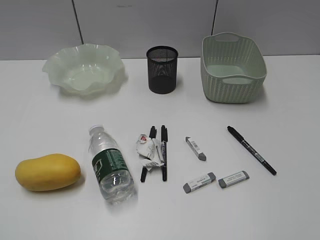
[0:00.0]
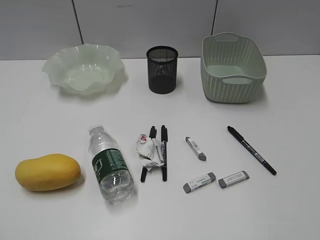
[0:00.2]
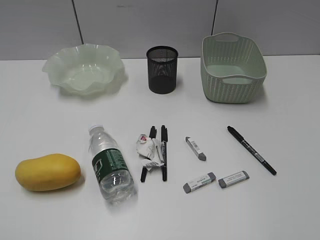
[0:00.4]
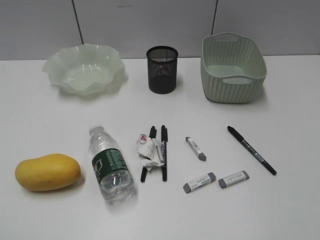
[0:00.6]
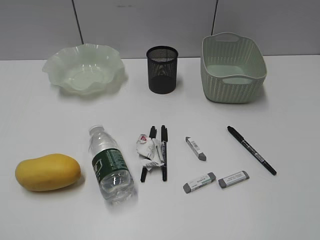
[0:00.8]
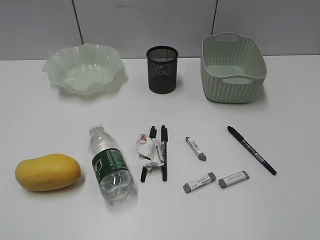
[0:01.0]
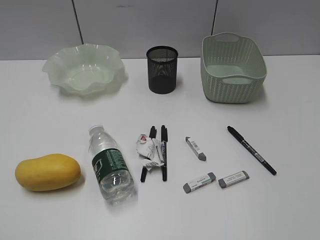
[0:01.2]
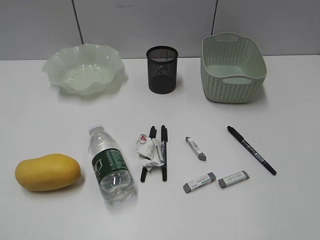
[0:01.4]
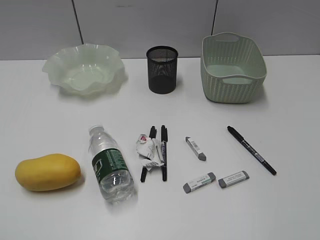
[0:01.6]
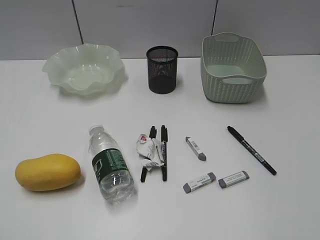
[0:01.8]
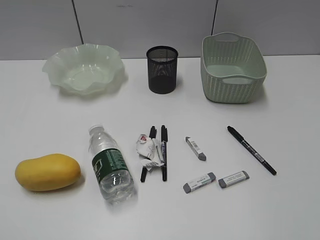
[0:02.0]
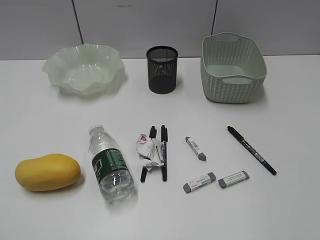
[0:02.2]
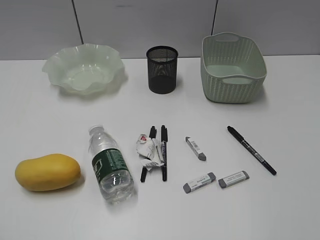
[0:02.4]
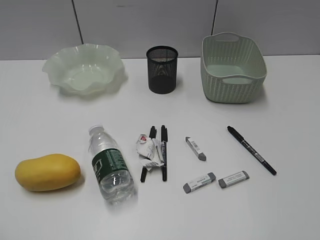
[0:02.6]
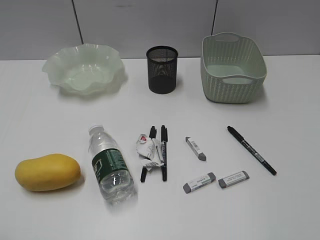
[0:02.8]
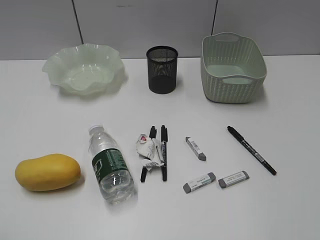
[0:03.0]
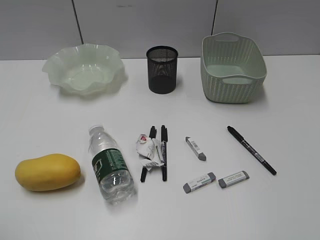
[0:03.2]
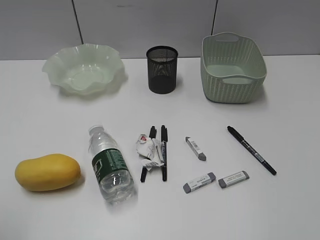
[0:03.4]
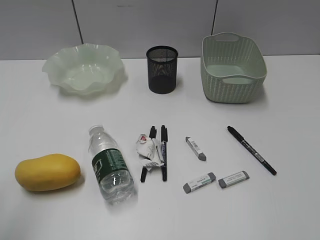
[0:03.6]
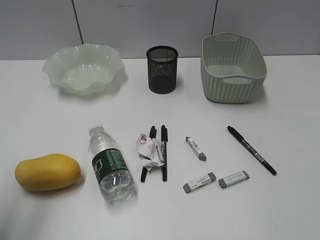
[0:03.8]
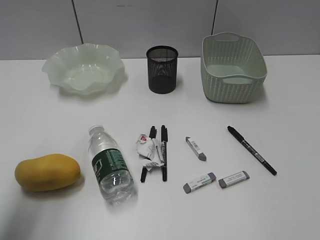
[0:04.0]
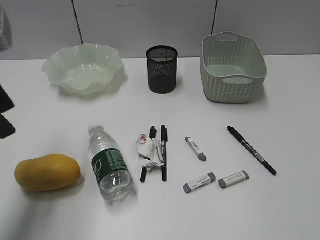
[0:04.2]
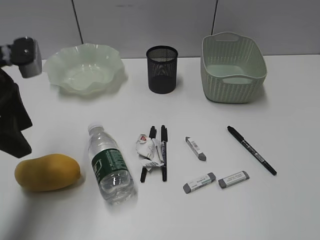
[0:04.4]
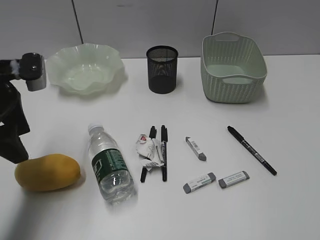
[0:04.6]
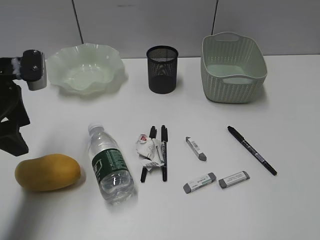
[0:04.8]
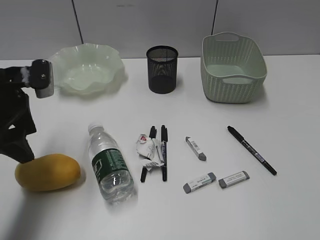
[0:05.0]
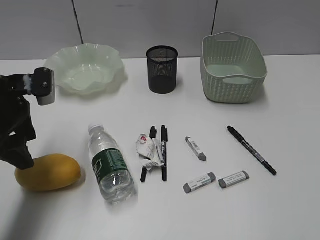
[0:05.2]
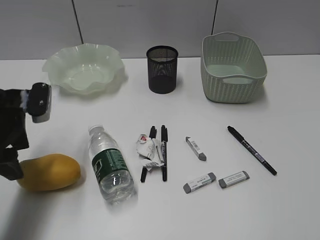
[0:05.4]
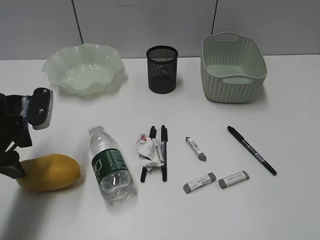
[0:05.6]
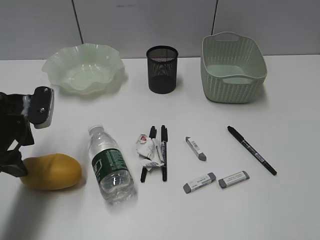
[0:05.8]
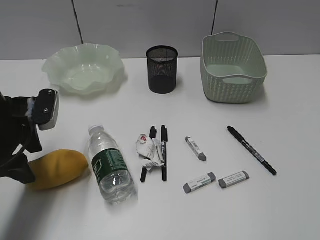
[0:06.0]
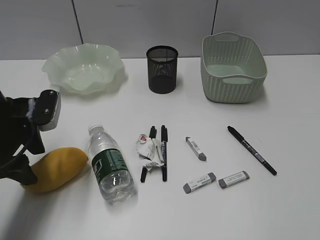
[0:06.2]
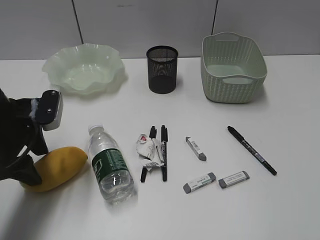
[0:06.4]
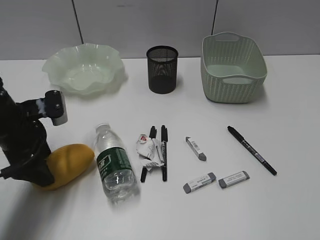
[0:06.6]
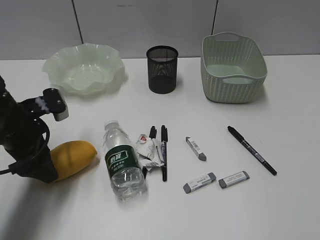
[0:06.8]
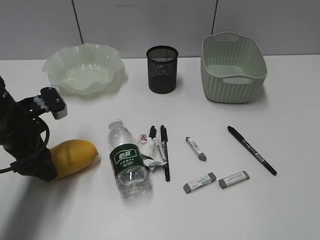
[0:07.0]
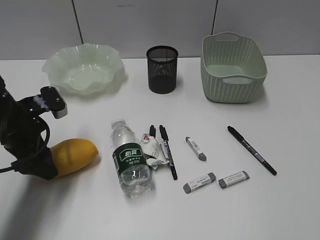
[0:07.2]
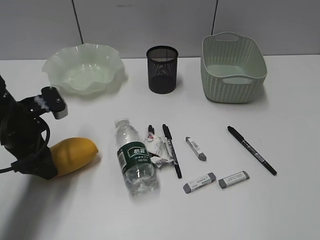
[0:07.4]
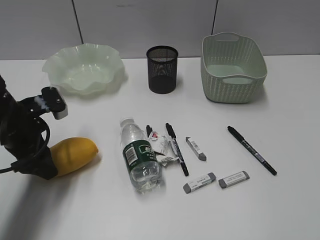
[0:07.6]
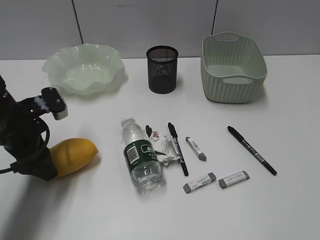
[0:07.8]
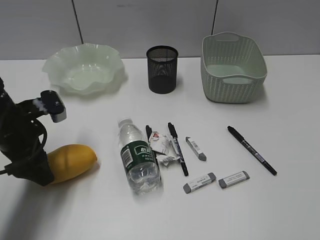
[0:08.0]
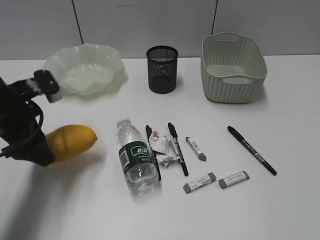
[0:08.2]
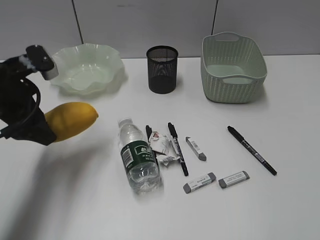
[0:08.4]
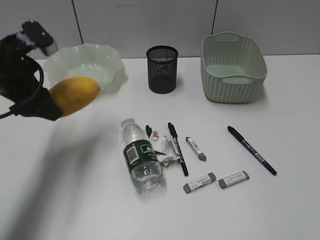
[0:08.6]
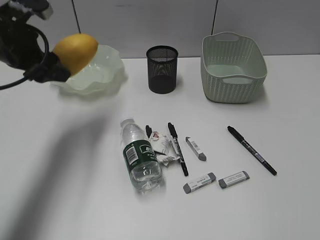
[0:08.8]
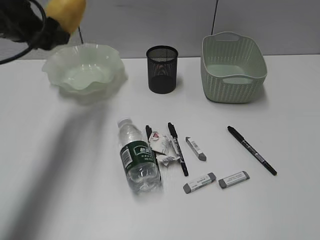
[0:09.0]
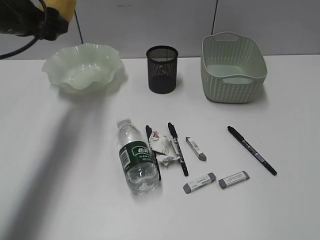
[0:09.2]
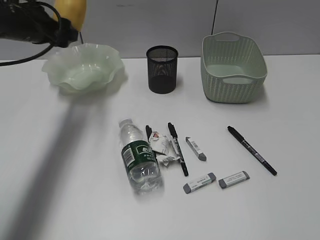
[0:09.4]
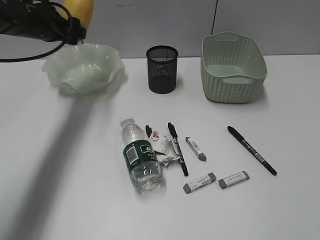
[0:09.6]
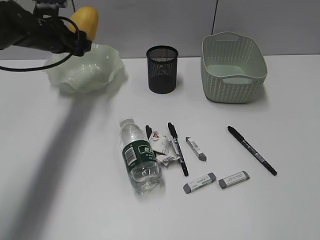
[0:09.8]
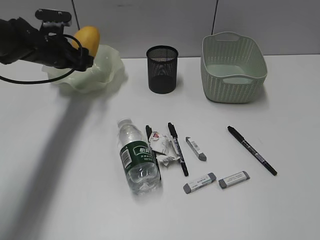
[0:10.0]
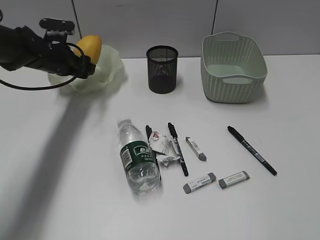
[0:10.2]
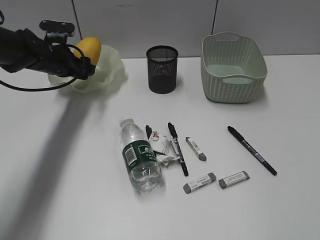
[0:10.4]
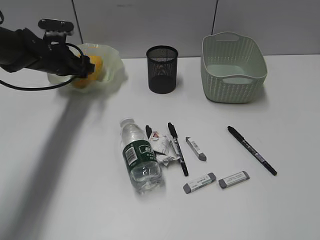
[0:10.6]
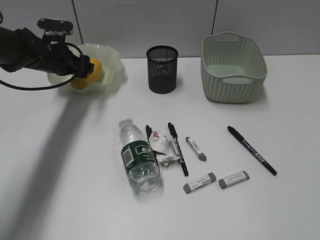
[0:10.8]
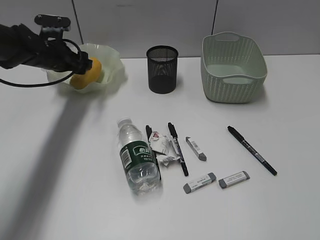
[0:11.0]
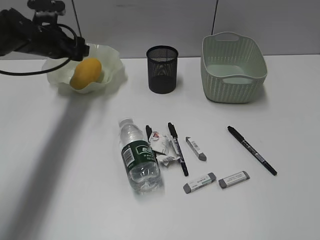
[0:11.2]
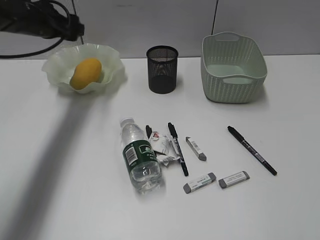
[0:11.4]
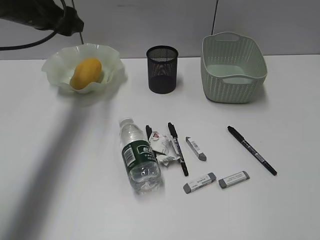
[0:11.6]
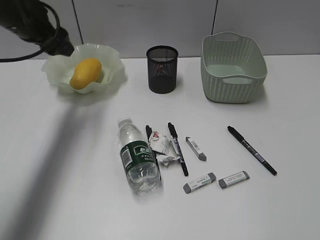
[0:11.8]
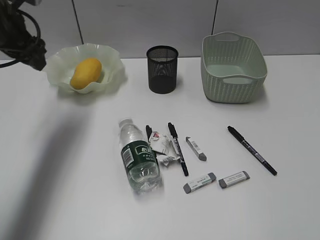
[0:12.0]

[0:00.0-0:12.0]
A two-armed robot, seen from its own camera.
Step, 0:04.2 to 0:07.8: Grasp the mango with left gripper.
Step, 0:08.0 to 0:11.2: Place the mango in the plate with left gripper.
0:03.0 to 0:04.4: The left gripper heads forward, covering approximately 30 cm.
0:04.4 to 0:06.0: The left gripper moves downward, roughly 10 cm.
0:07.6 to 0:09.0: The left gripper travels upward and forward by approximately 15 cm.
0:09.0 to 0:10.4: The left gripper heads downward and forward, covering some 15 cm.
0:10.4 to 0:12.0: The left gripper is displaced upward and backward by approximately 15 cm.

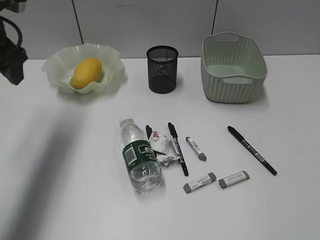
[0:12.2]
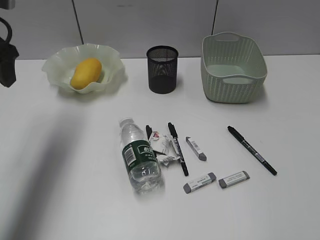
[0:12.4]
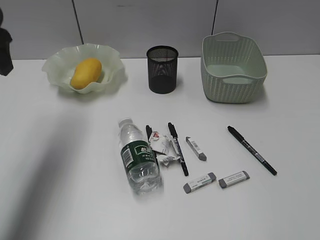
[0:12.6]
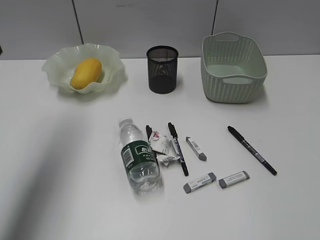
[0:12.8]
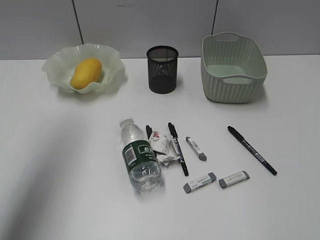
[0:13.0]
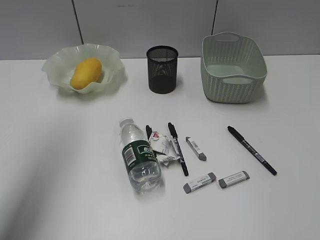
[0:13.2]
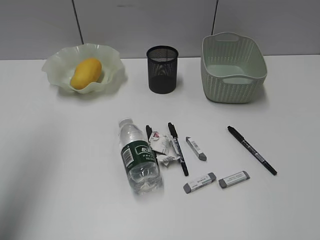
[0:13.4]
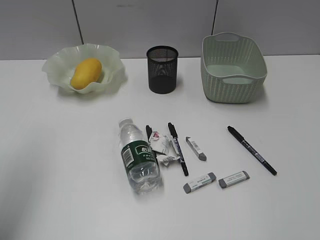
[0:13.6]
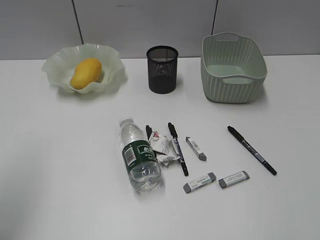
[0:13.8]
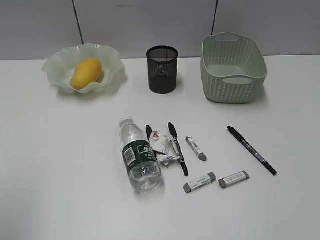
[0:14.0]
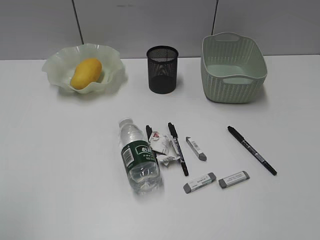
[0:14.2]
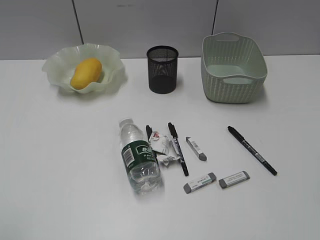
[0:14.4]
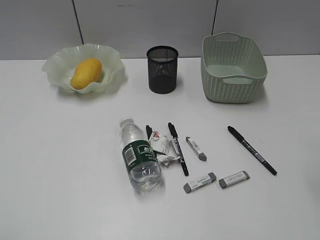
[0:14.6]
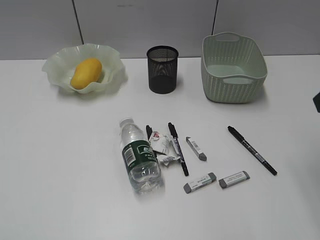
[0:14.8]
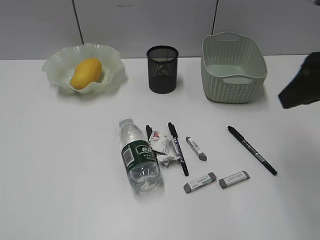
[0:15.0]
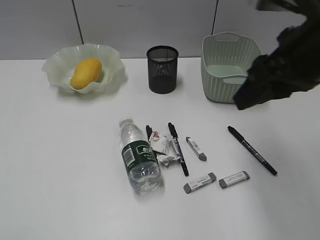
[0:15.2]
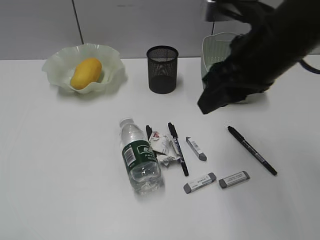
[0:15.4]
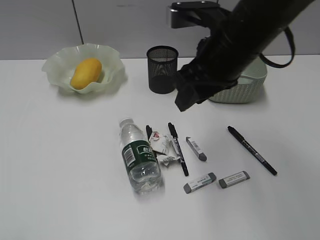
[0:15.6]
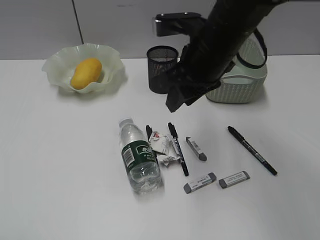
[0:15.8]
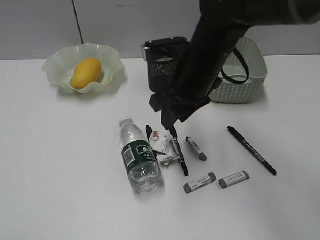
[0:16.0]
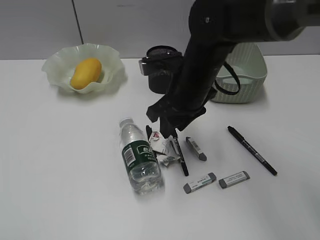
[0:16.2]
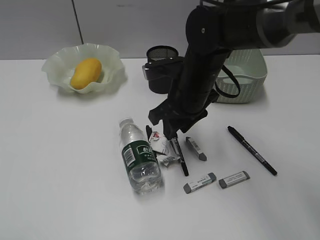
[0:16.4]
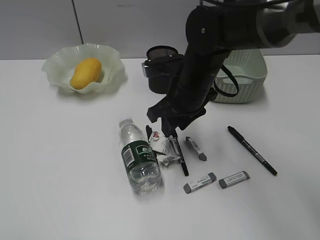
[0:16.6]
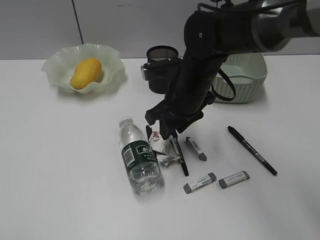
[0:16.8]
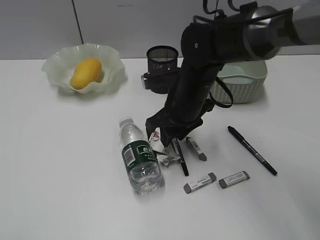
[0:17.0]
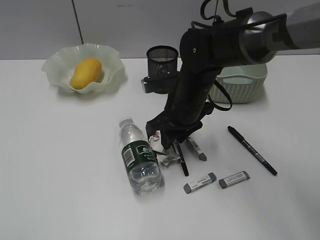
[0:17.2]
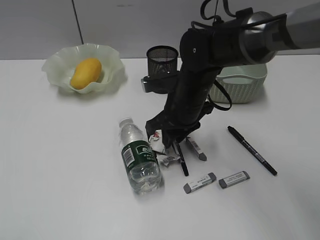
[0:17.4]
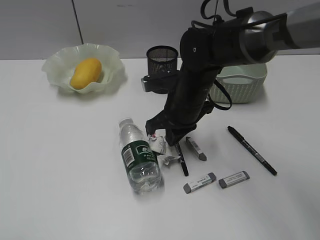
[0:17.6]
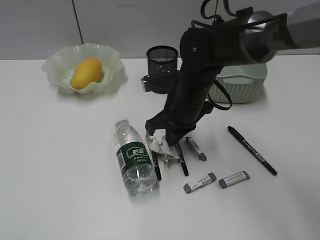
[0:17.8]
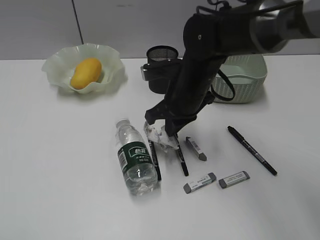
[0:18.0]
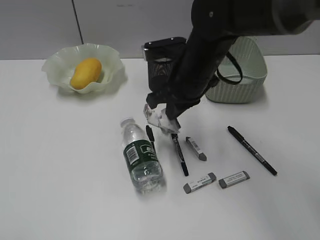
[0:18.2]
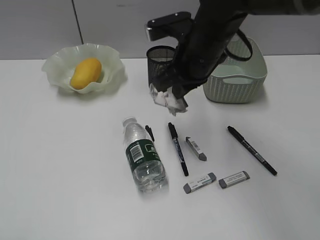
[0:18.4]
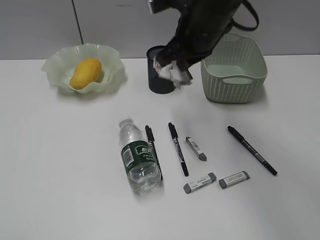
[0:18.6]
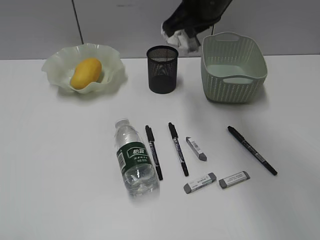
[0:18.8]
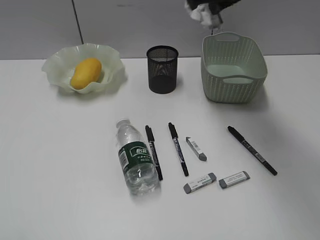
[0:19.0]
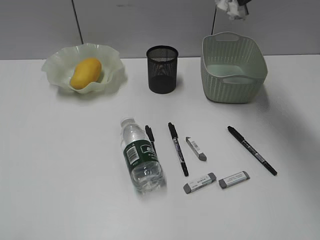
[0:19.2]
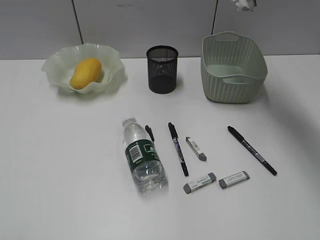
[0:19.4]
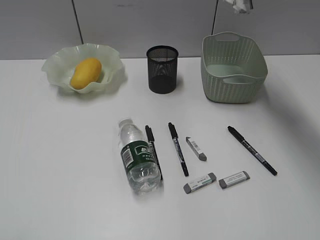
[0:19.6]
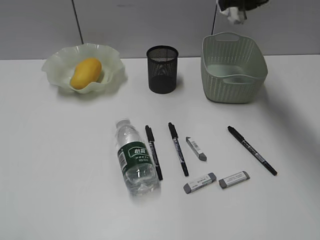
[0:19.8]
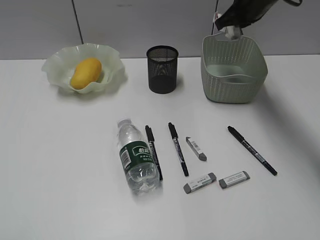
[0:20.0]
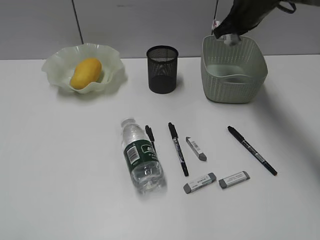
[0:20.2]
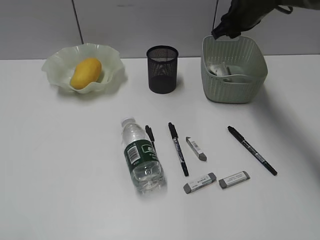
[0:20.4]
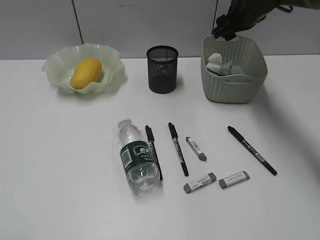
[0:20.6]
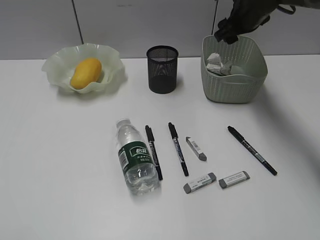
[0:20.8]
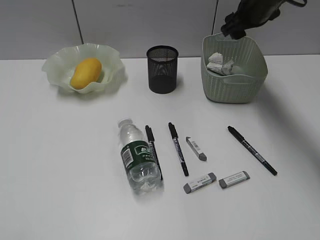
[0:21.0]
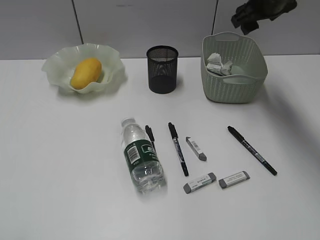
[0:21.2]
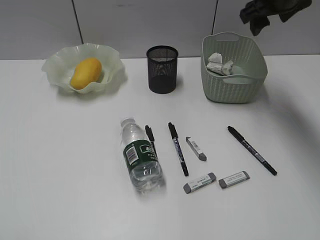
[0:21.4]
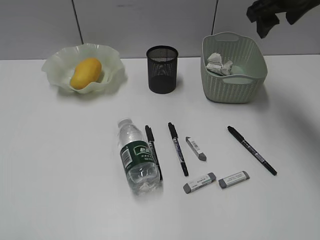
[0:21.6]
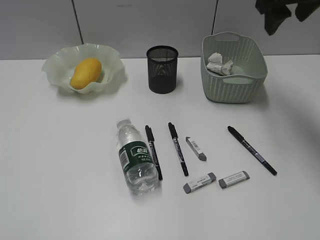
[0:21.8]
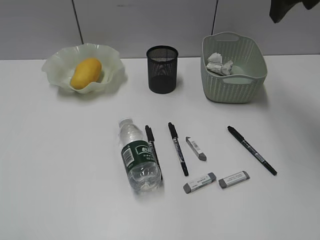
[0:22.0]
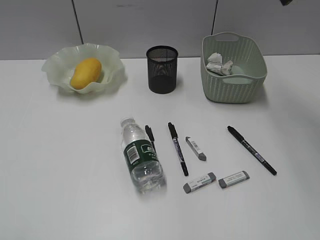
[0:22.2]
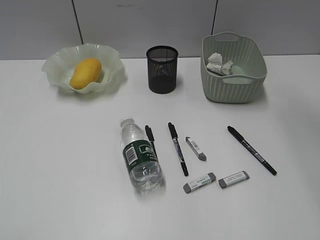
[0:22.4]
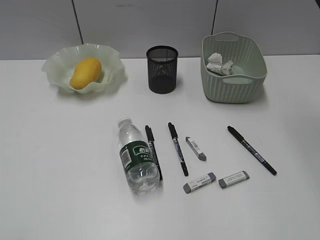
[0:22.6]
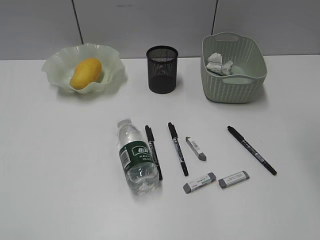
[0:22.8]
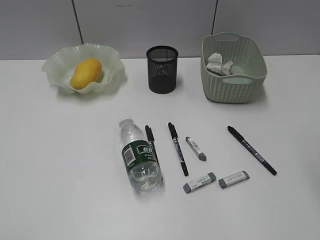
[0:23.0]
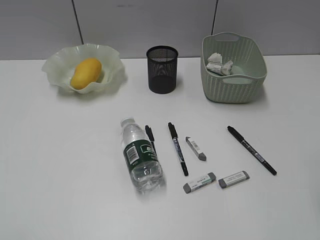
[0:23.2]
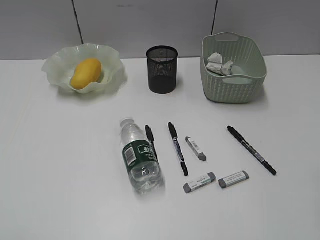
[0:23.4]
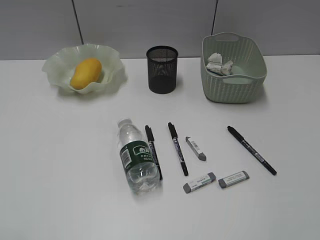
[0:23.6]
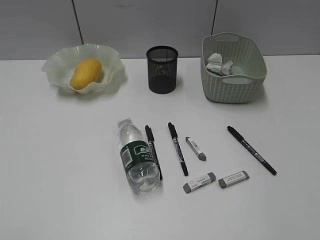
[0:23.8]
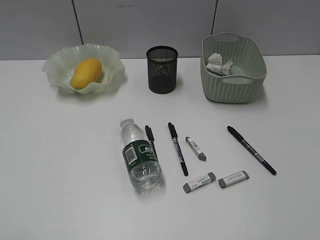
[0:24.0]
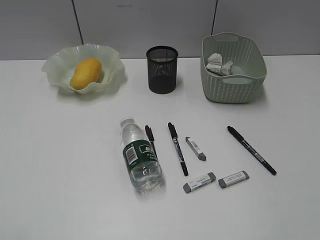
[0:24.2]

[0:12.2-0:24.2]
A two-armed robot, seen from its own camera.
Step, 0:12.2 to 0:17.6: Grasp the waste paper with right gripper.
Step, 0:17.8 to 0:20.8: Place the waste paper in the basket with right gripper.
0:12.2 to 0:13.8: The left gripper moves backward and upward, some 25 cm.
0:13.8 to 0:15.2: The right gripper heads forward and to the left, covering approximately 25 cm; the left gripper is displaced backward and downward by approximately 15 cm.
0:15.2 to 0:16.6: The right gripper heads downward, to the left and forward, covering some 20 cm.
0:16.6 to 0:18.2: The right gripper closes up.
0:18.2 to 0:19.8: The right gripper shifts some 20 cm forward, to the right and upward.
0:19.8 to 0:21.2: The right gripper opens.
0:21.2 to 0:22.6: The right gripper travels backward and upward by roughly 25 cm.
0:22.6 to 0:24.2: The right gripper heads backward and downward, covering approximately 30 cm.
